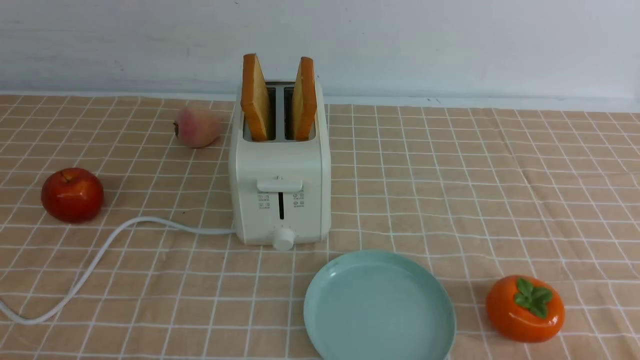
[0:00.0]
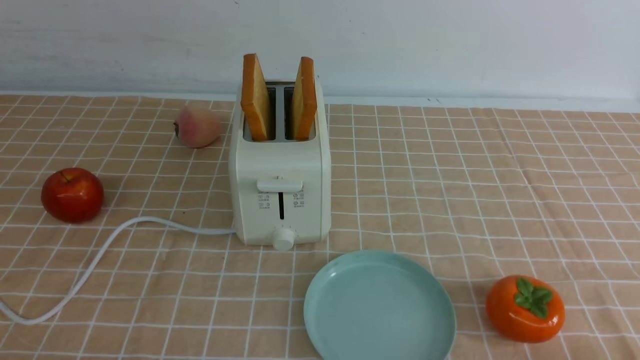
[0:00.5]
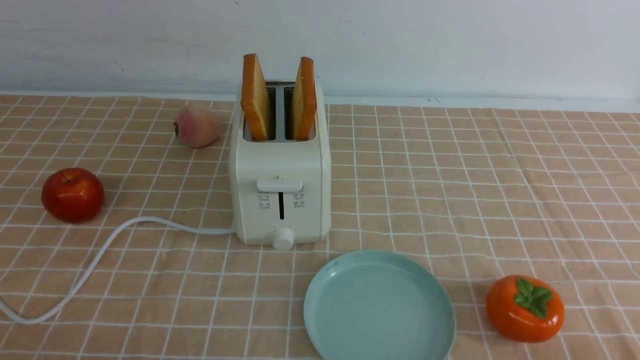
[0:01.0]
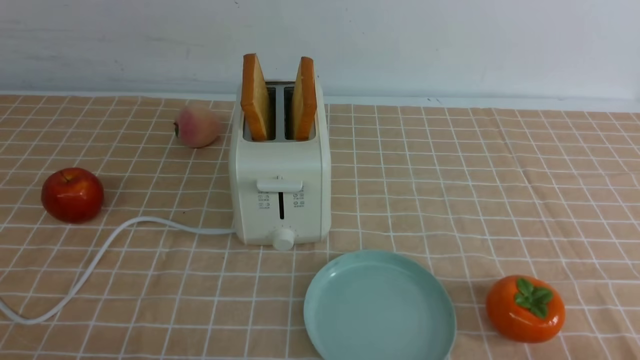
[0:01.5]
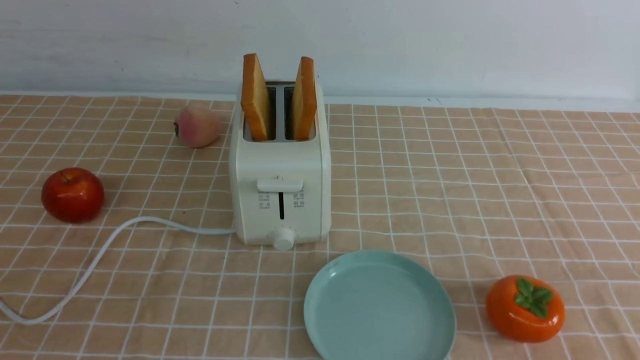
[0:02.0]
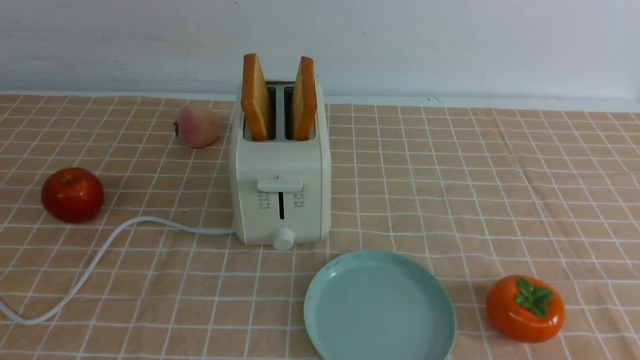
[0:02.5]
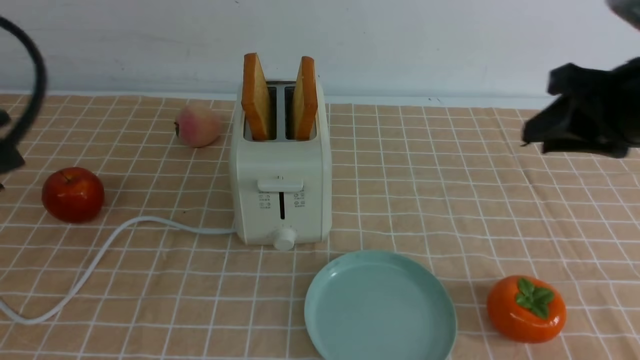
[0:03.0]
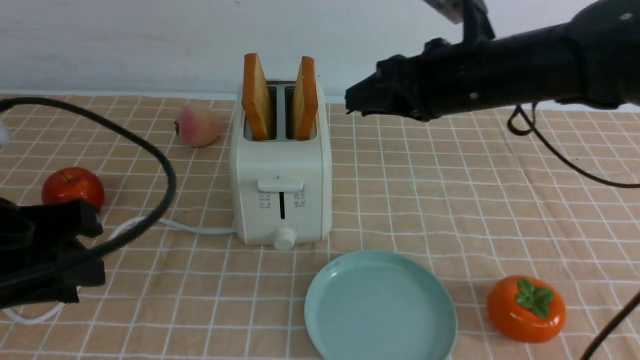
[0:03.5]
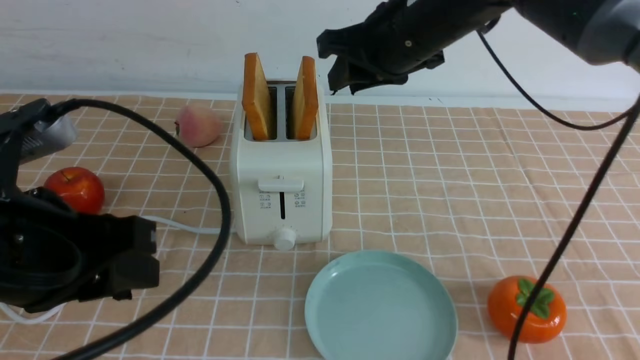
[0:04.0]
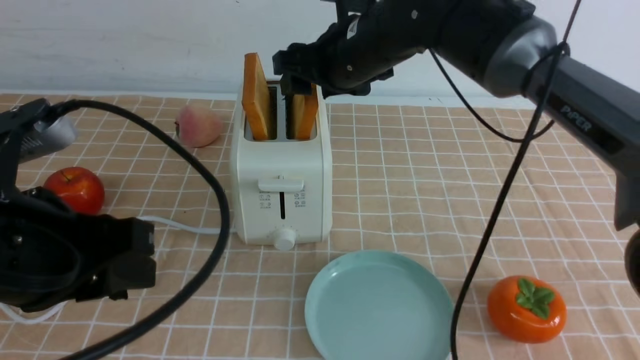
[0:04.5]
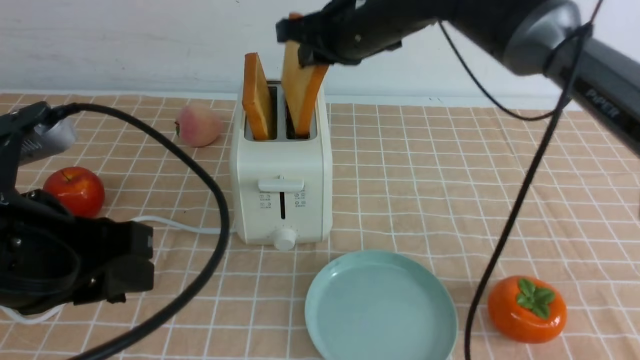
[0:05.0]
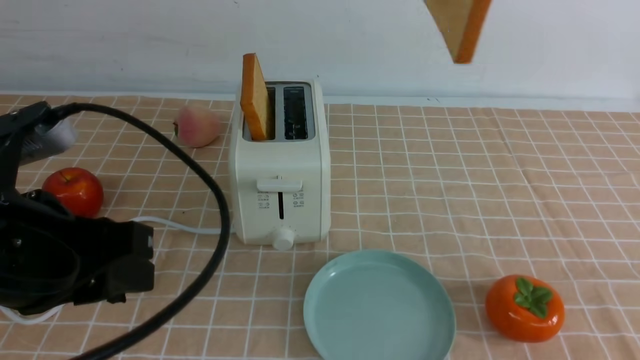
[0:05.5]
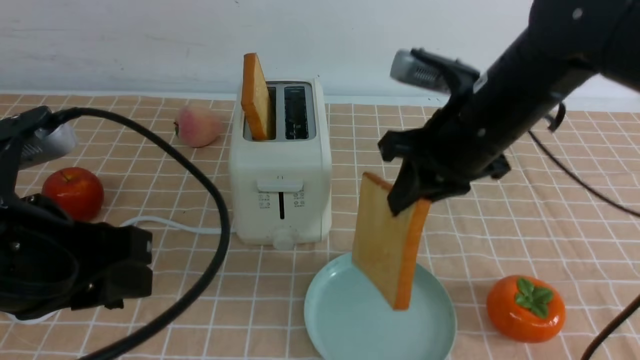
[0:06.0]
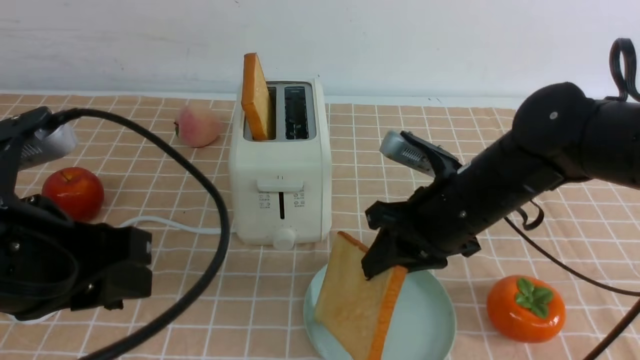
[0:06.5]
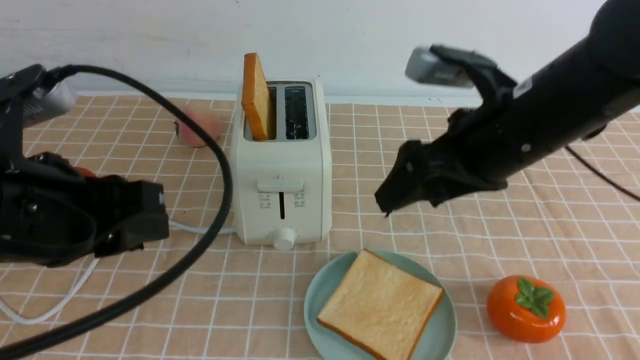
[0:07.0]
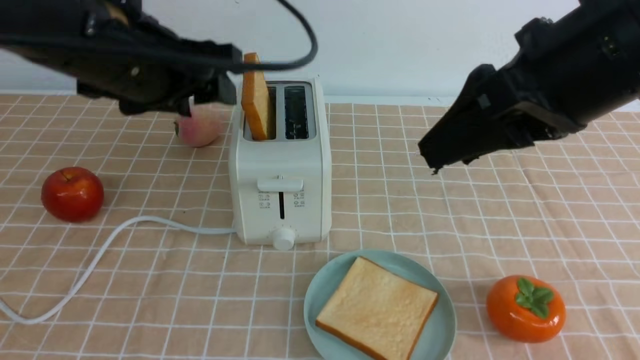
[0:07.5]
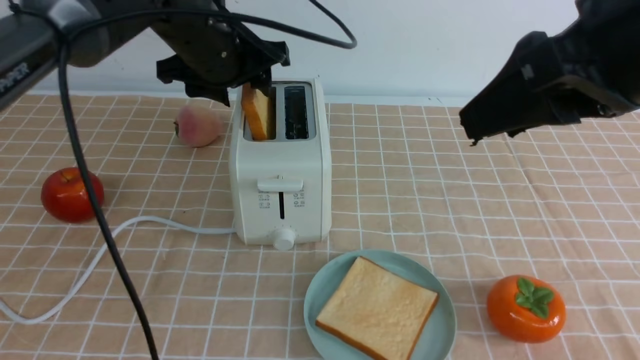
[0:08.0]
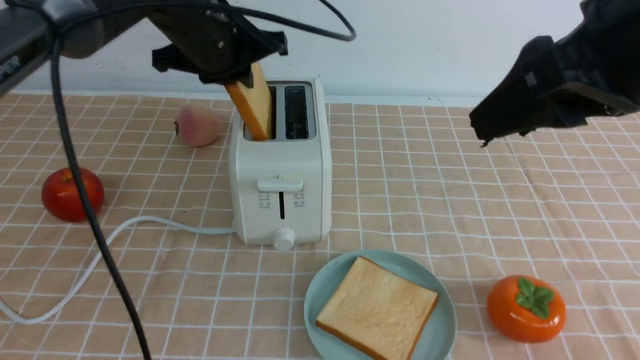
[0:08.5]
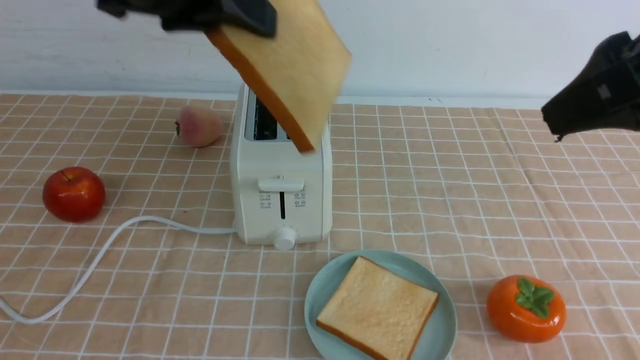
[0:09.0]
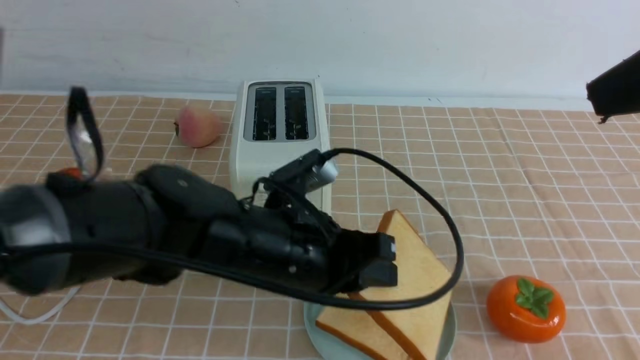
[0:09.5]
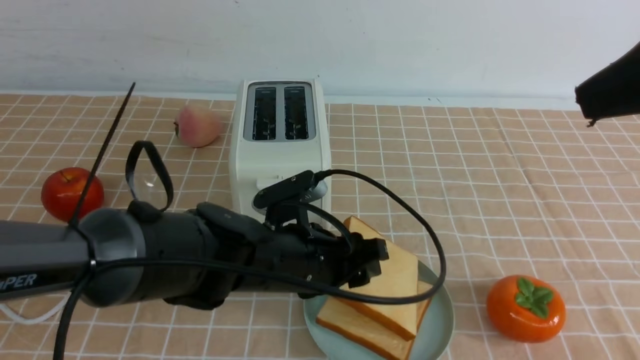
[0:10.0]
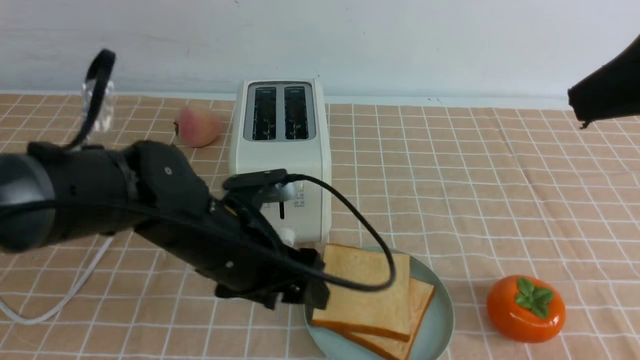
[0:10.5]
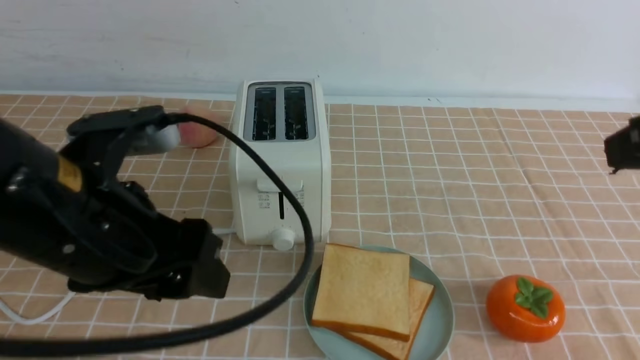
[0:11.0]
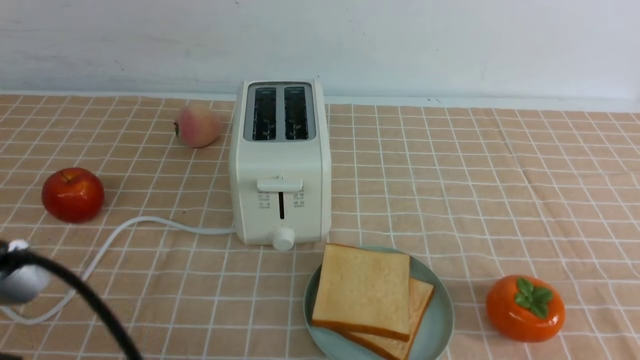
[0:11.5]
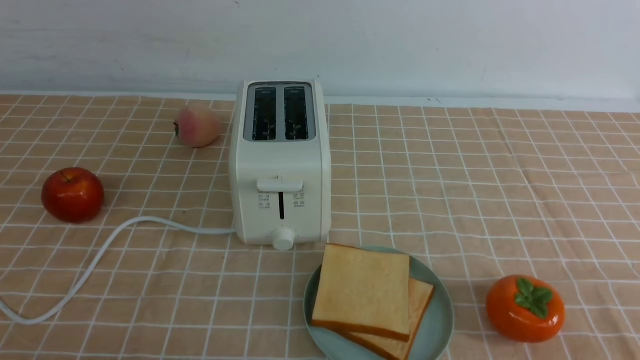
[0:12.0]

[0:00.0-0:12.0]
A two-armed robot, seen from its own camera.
Task of the whole recording: take toasted bread from bread machine on light coffee tablecloth place on plate.
Step, 0:00.0 to 0:05.0: use the right arm to take out a slice of bread.
Step, 0:05.5 to 0:07.0: use the right arm to put a slice of bread into the plate.
Step, 0:07.5 to 0:08.5: use the left arm to take out a slice of bread.
Step, 0:09.0 to 0:10.0: use the left arm to put a slice of bread into the empty plate.
0:02.0 to 0:04.0: The left gripper heads forward and to the right, covering some 15 cm. Meanwhile the right gripper travels forward and to the left by some 40 cm.
0:04.0 to 0:06.0: The right gripper goes some 10 cm backward and to the right, goes upward and returns, roughly 10 cm each way, and closes its fingers.
0:06.0 to 0:08.0: The right gripper is displaced upward and backward by roughly 15 cm, and opens, while the left gripper travels forward by roughly 25 cm, and opens its fingers.
0:08.0 to 0:10.0: The left gripper travels backward, downward and to the right by some 25 cm, and closes, then opens again, while the right gripper moves some 5 cm.
0:10.0 to 0:12.0: The right gripper moves downward, some 25 cm, and closes. The left gripper goes roughly 30 cm backward, to the left and upward, and closes.

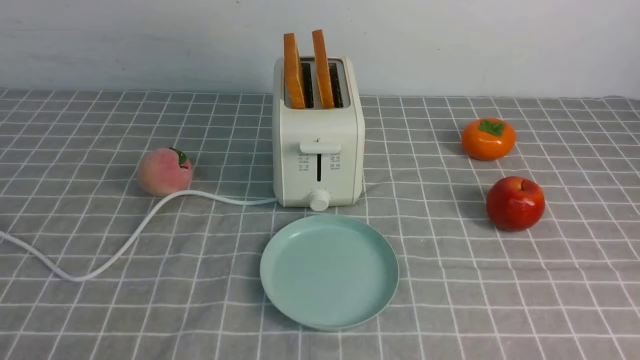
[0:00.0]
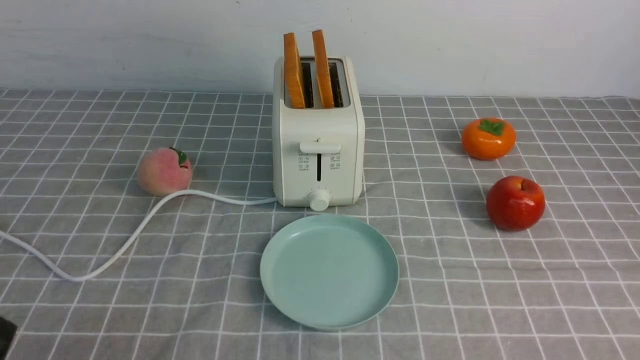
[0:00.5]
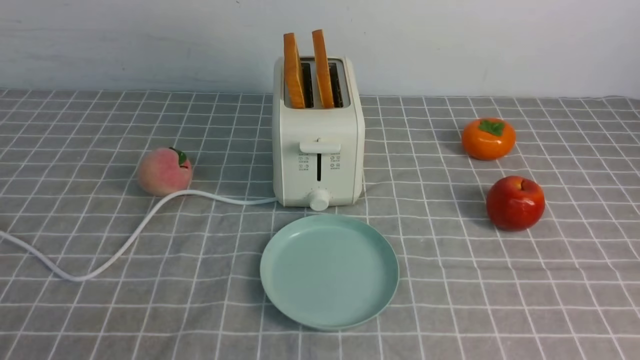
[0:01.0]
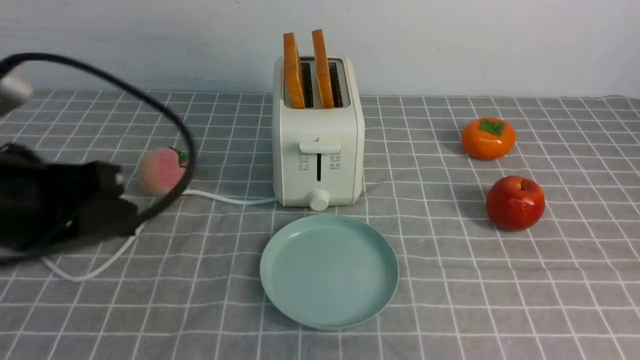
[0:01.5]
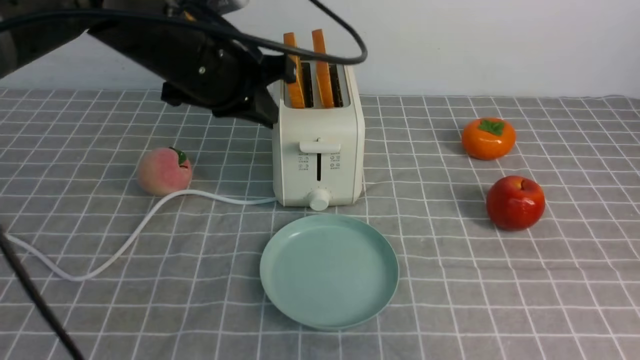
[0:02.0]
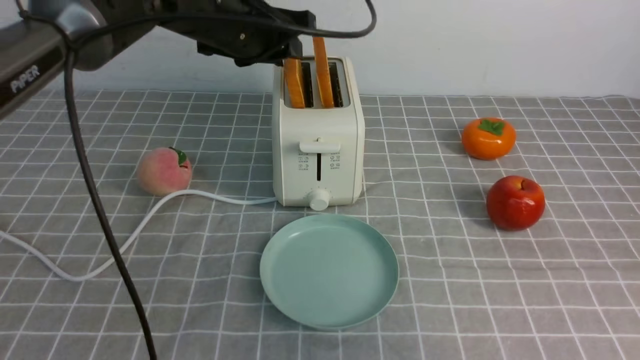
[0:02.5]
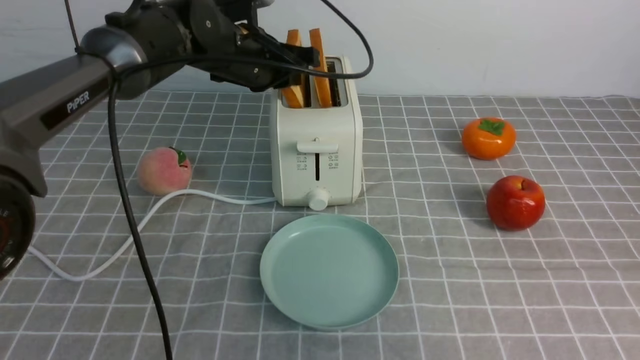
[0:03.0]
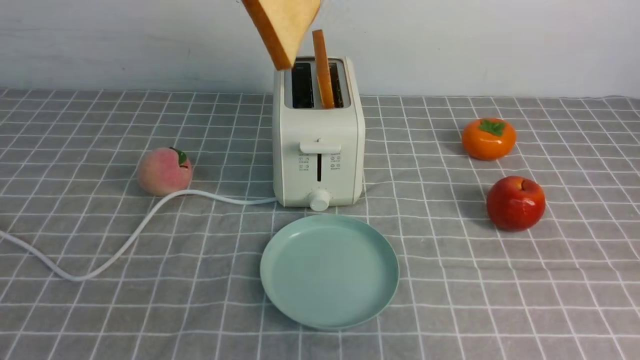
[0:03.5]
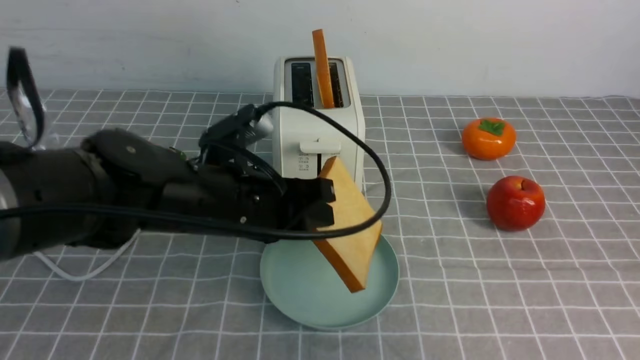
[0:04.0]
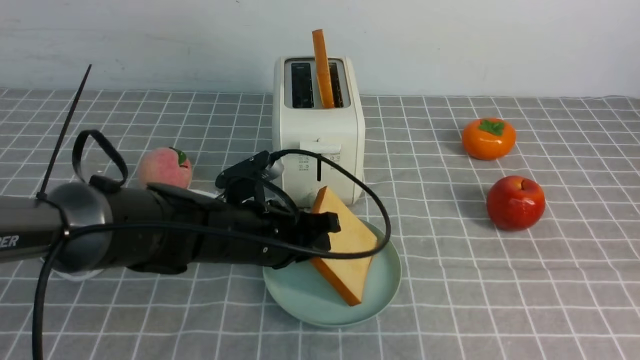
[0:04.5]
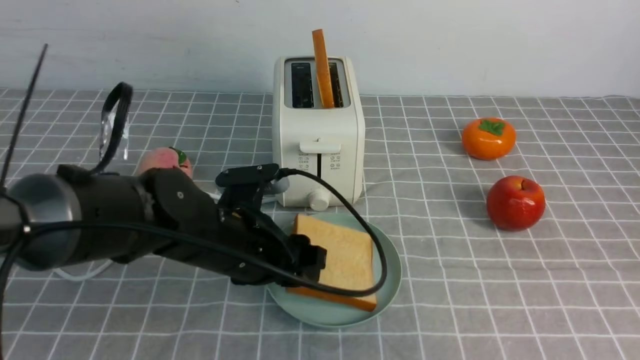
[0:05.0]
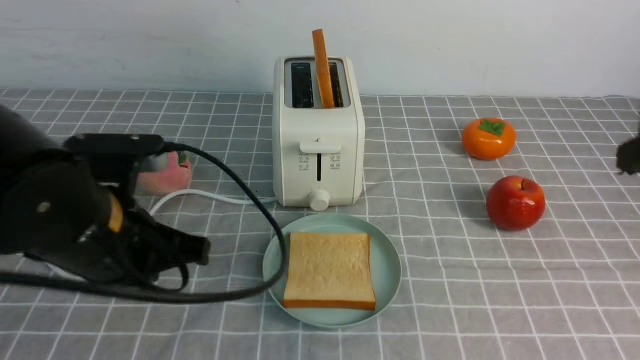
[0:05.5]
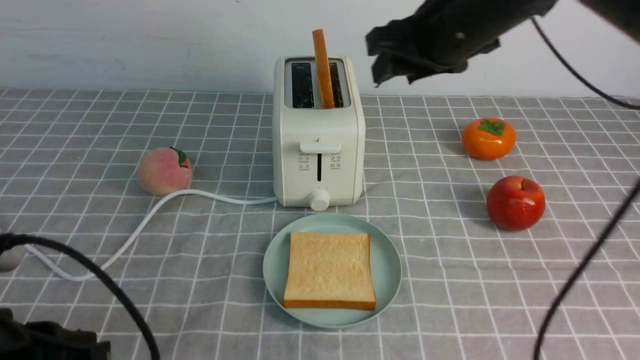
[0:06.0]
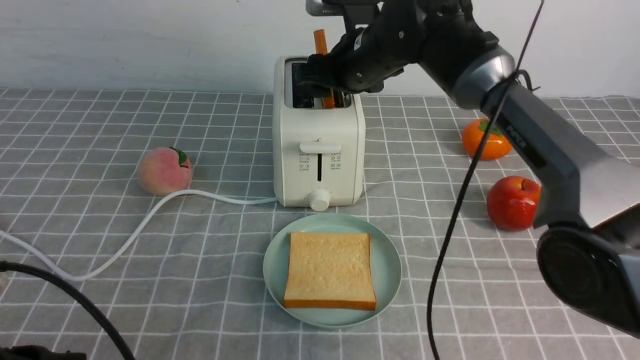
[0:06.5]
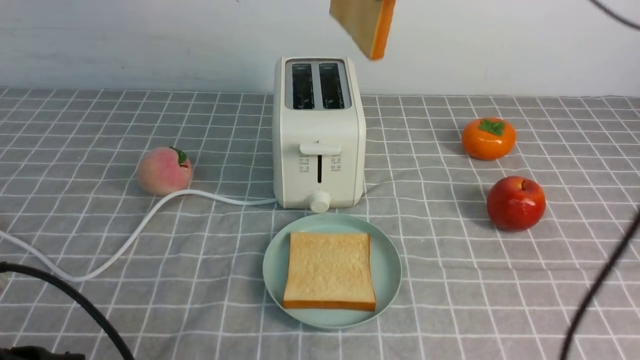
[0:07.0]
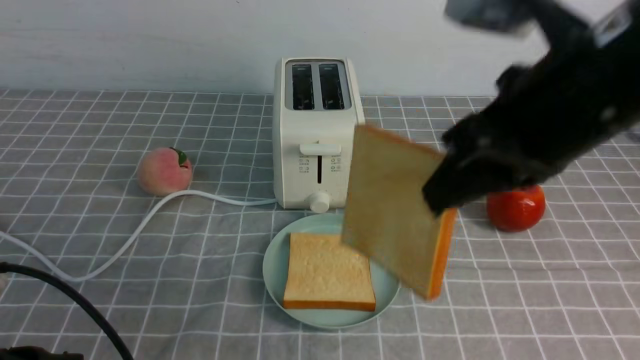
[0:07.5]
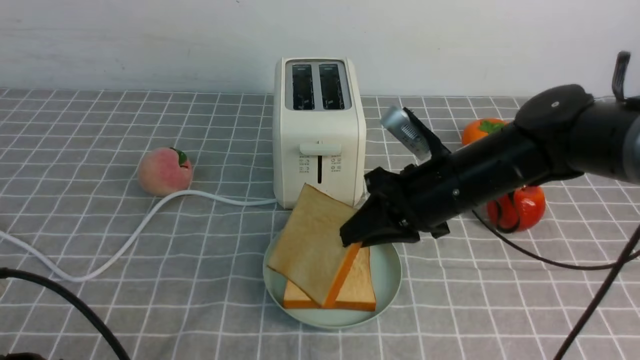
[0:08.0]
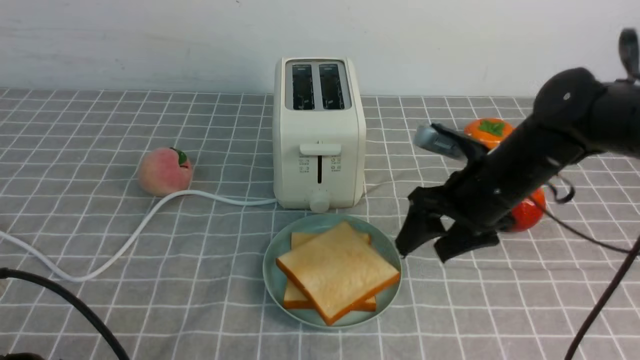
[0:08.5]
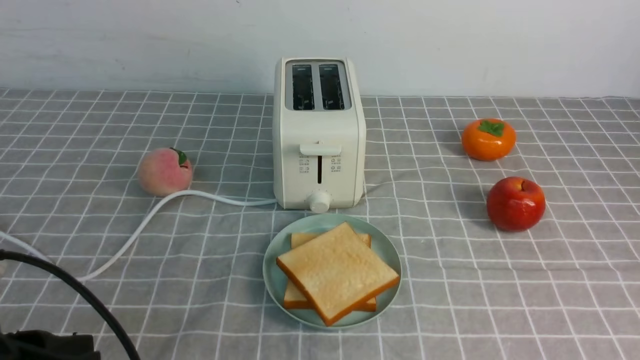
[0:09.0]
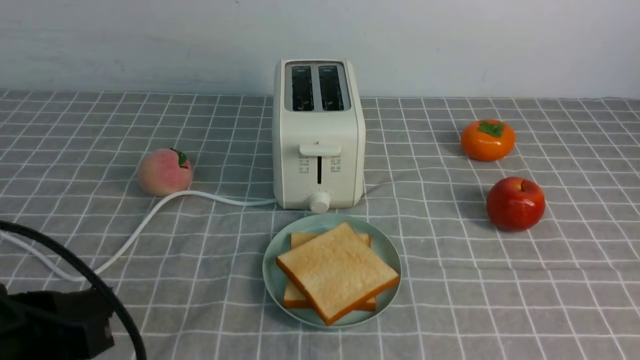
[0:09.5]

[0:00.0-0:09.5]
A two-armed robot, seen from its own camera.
Task of the whole recording: take toasted bread from bread machine on grey coffee table place on plate.
Step, 0:00.0 to 0:03.0: use the left arm to take out a slice of bread.
Step, 0:03.5 to 0:05.0: use the left arm to put a slice of bread into the empty plate.
Step, 0:05.5 to 0:06.5: use the right arm to take out a slice of bread.
Step, 0:07.0 to 0:08.5: use the right arm to put a slice of bread into the plate.
0:00.0 to 0:02.0: The left gripper travels forward, upward and to the right by some 40 cm, and closes up; the right gripper is displaced upward and forward by roughly 20 cm, and closes.
0:02.0 to 0:04.0: The left gripper moves downward and backward, approximately 15 cm, and opens and closes again.
0:04.0 to 0:05.5: The left gripper heads backward and to the left, covering approximately 10 cm, and opens, then closes once more. The right gripper is displaced forward by roughly 5 cm.
0:05.5 to 0:07.5: The right gripper heads to the left, covering about 10 cm, reaches some 25 cm forward, then returns, and opens, then closes once more, while the left gripper travels backward and to the left by roughly 15 cm.
0:07.5 to 0:09.5: The right gripper travels backward and to the right by approximately 30 cm, and opens, then closes again.
